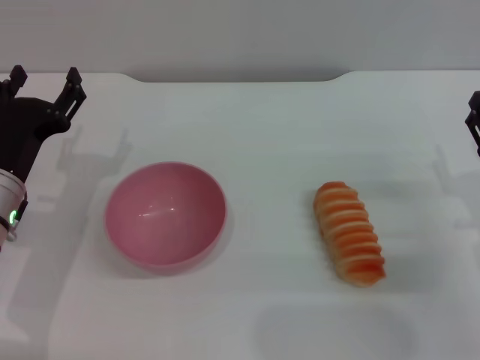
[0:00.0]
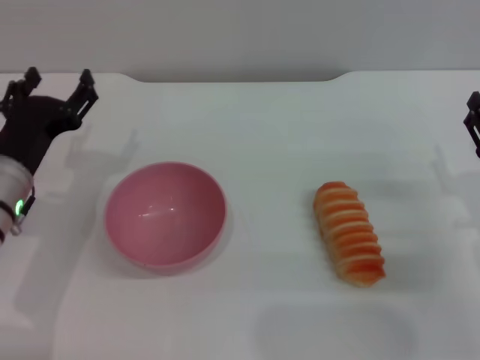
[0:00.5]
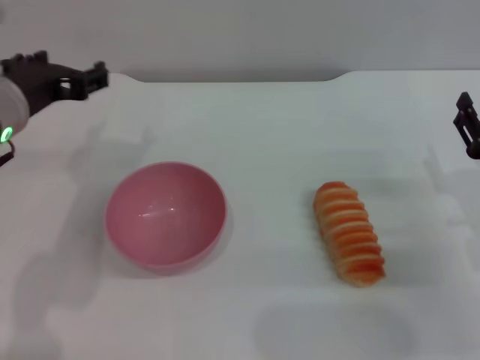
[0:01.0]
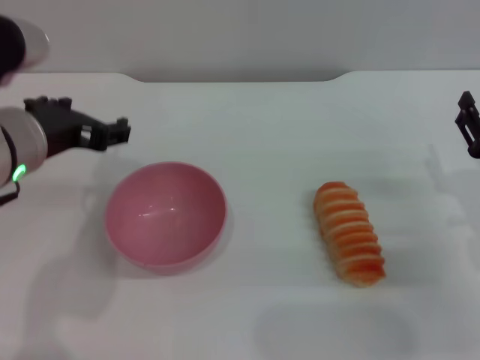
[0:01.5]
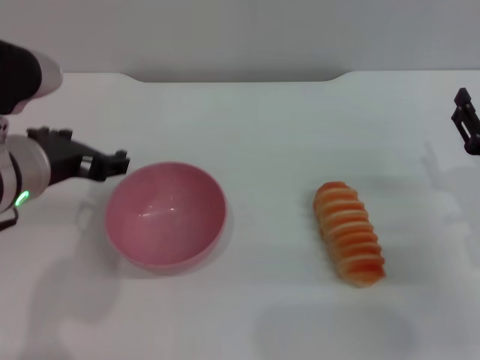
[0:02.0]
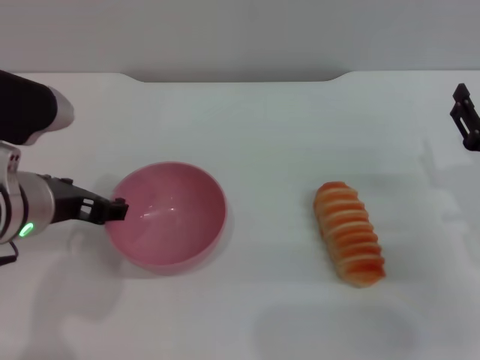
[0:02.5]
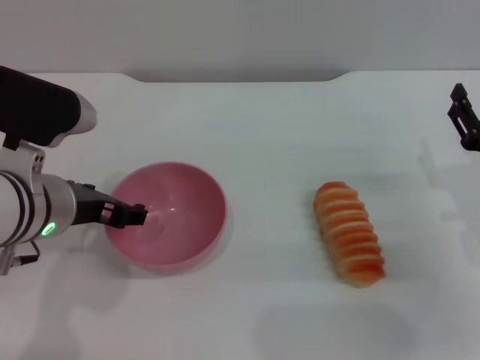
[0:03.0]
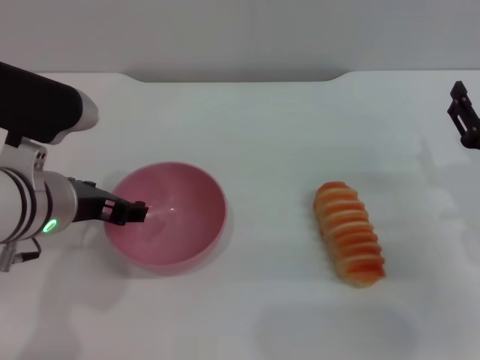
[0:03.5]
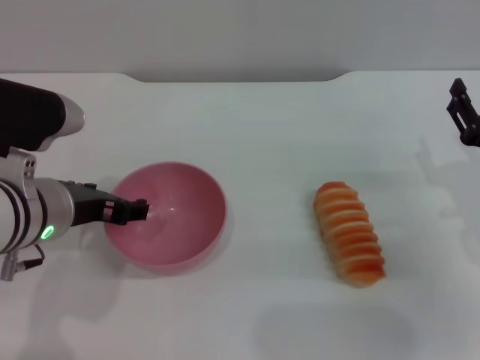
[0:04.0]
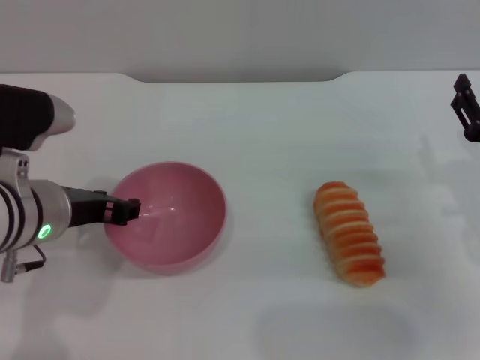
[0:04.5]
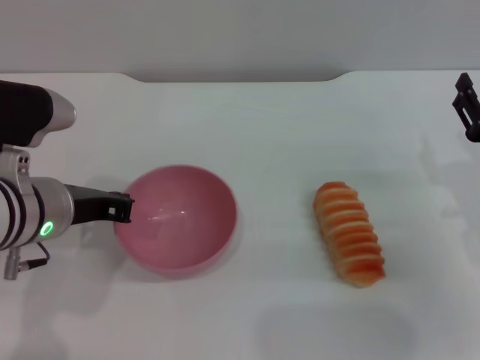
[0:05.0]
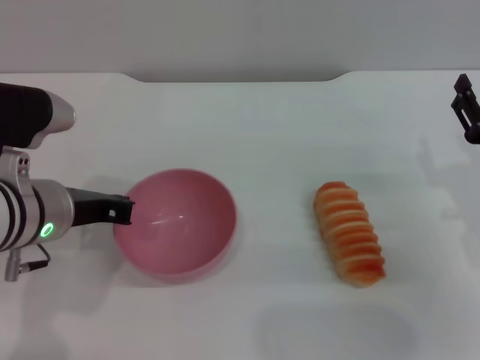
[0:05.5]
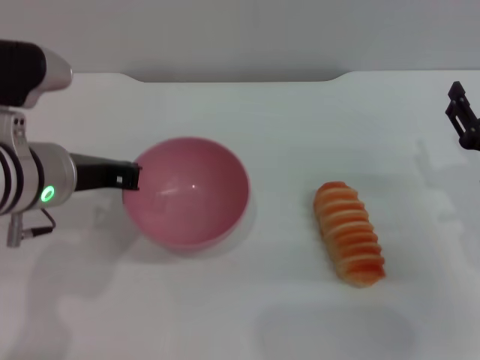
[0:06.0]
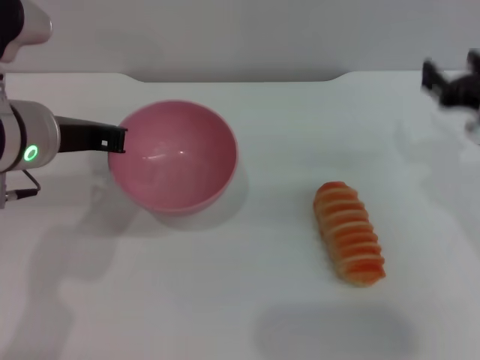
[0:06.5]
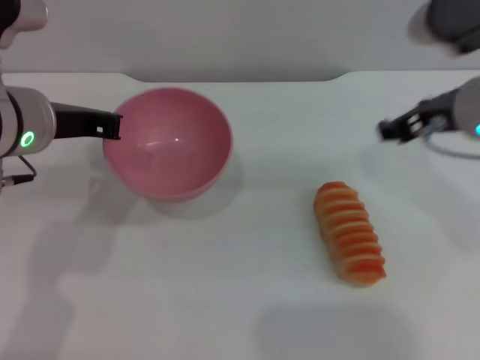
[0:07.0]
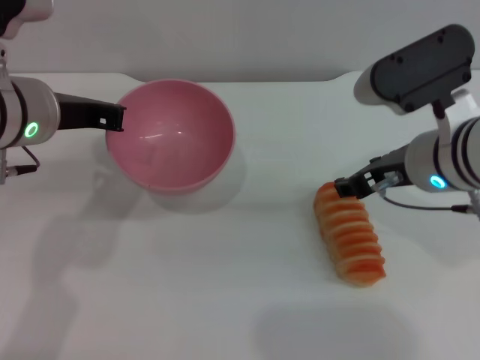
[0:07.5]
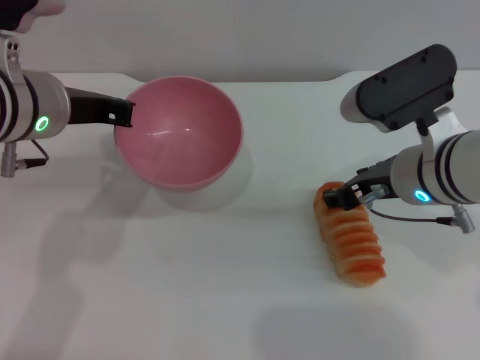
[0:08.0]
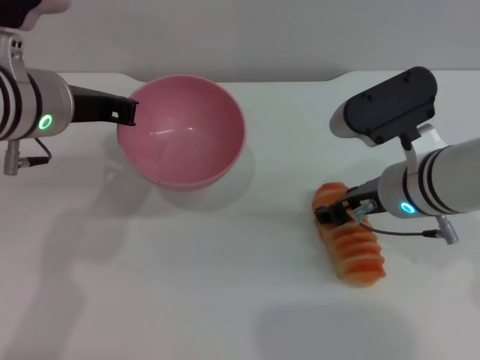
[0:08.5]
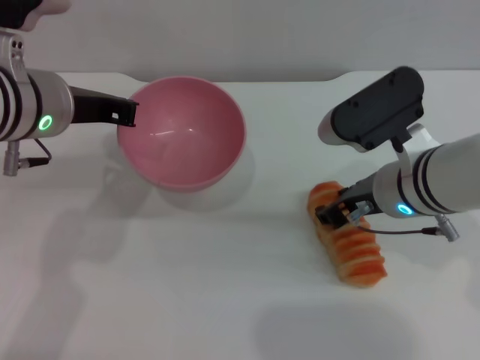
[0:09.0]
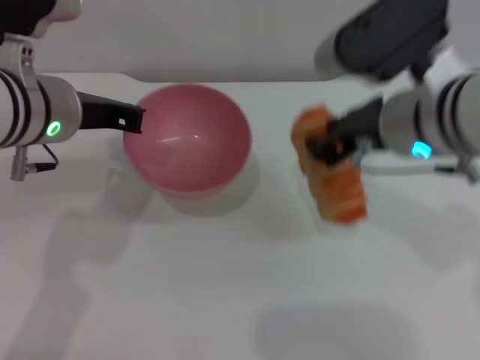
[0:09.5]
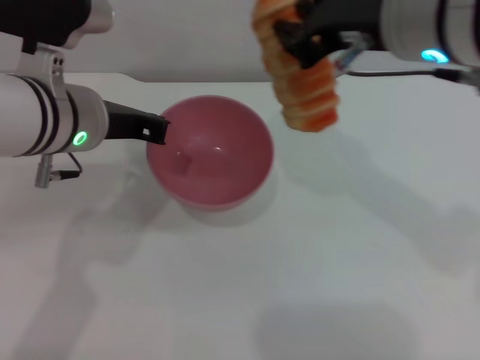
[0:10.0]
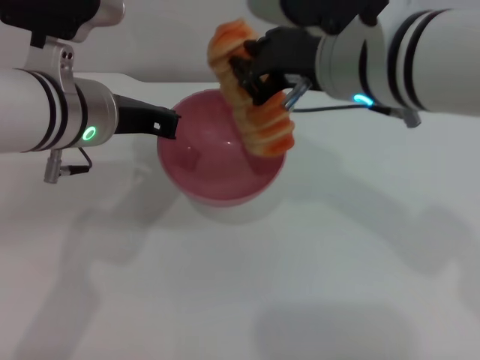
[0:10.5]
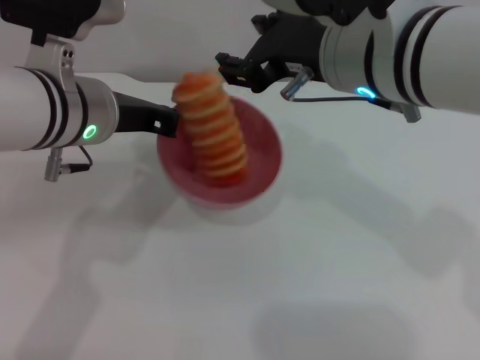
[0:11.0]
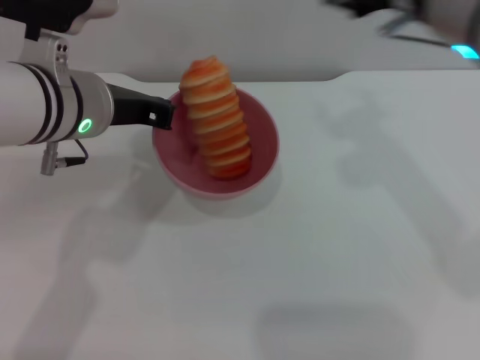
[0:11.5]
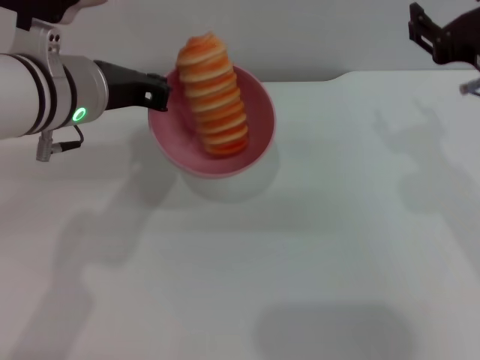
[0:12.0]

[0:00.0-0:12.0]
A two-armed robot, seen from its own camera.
Task of the whole recording: put the bread into the pink bowl and pour it out repeatedly.
Step, 0.0 to 6.0 s: Pick up the bowl with the left gripper.
Step, 6.5 to 9.0 s: Pick up the bread with the right gripper.
Step, 9.5 to 11.5 s: Place the bread into the bowl.
0.0 to 2.0 s: The left gripper heads upward and to the right, covering approximately 15 cm.
2.0 to 4.0 s: There are only small adjustments of the grippers.
4.0 to 6.0 s: The left gripper closes up.
6.0 to 8.0 s: The left gripper moves approximately 5 cm. Meanwhile the right gripper heads to the left and upward, covering about 15 cm.
8.0 to 10.0 s: The right gripper travels upward by some 15 cm, and closes up.
10.0 to 12.0 s: The right gripper heads to the right and downward, covering some 15 cm, and opens its fingers.

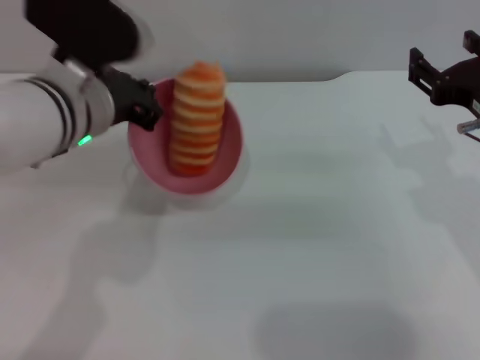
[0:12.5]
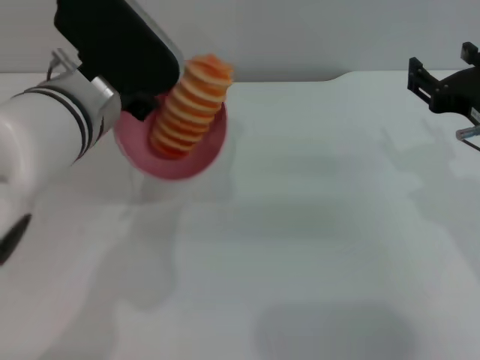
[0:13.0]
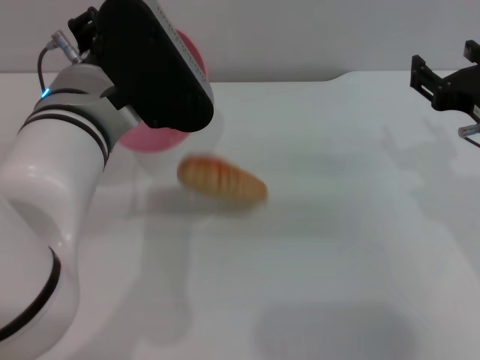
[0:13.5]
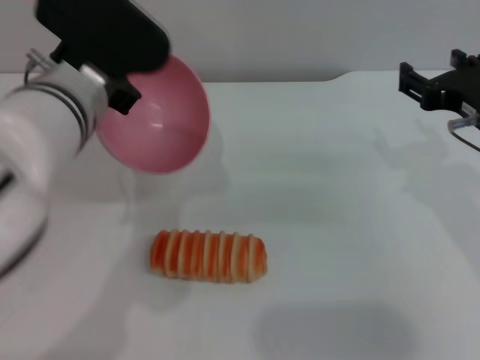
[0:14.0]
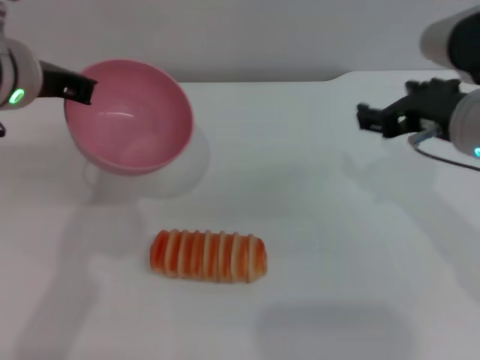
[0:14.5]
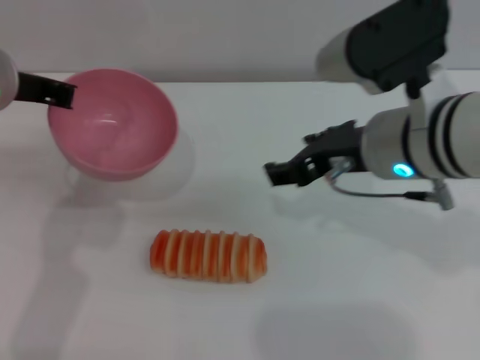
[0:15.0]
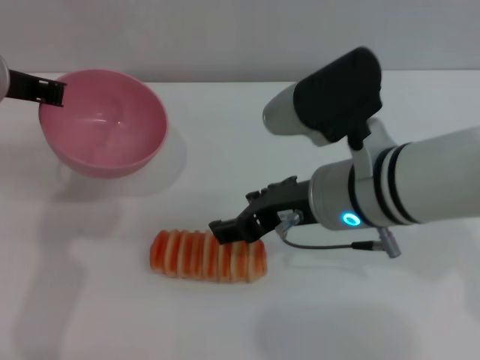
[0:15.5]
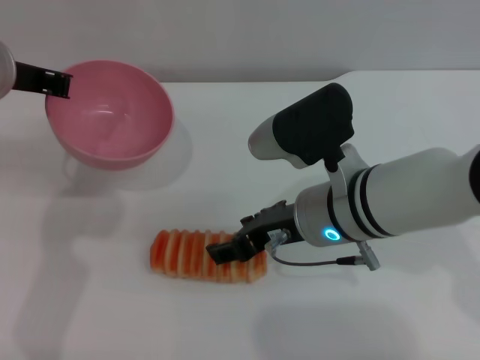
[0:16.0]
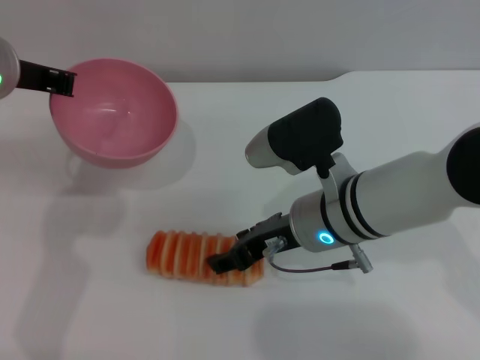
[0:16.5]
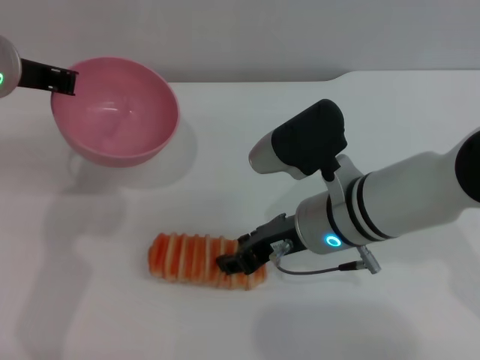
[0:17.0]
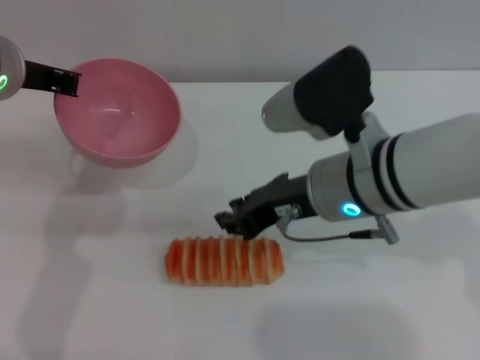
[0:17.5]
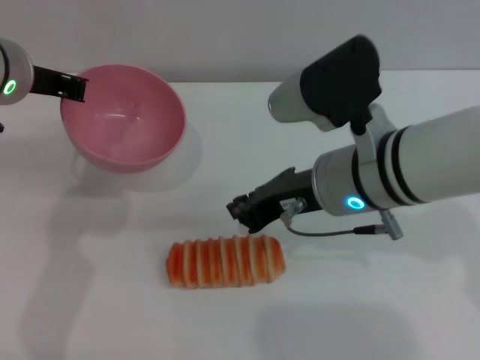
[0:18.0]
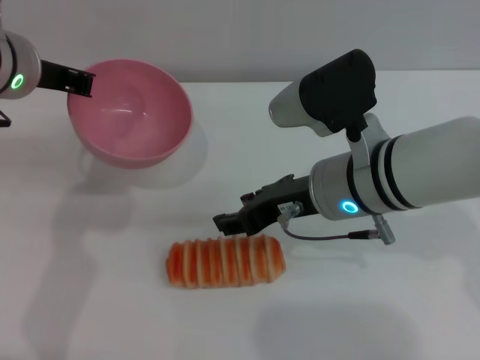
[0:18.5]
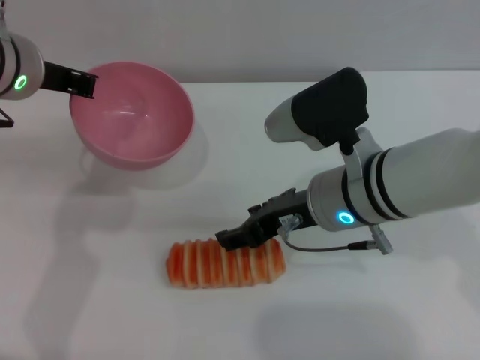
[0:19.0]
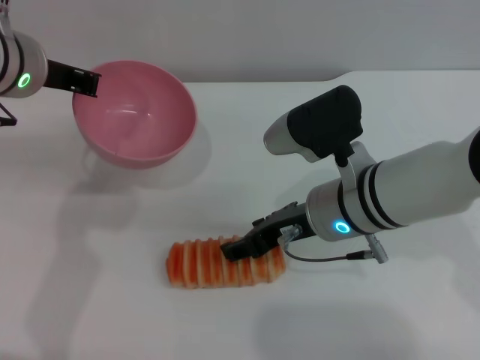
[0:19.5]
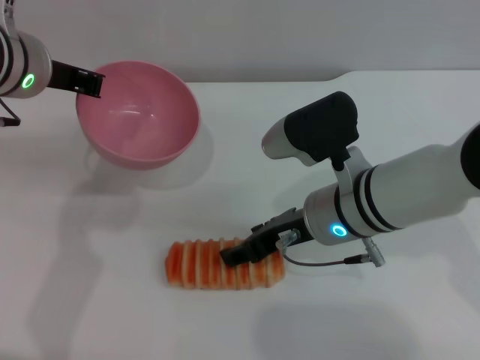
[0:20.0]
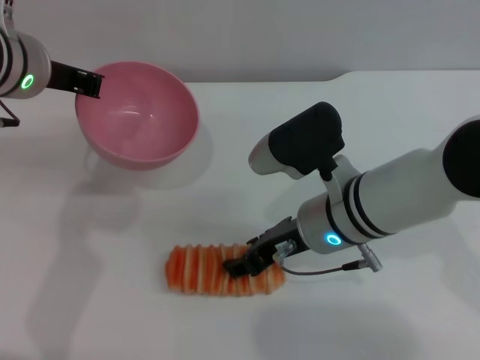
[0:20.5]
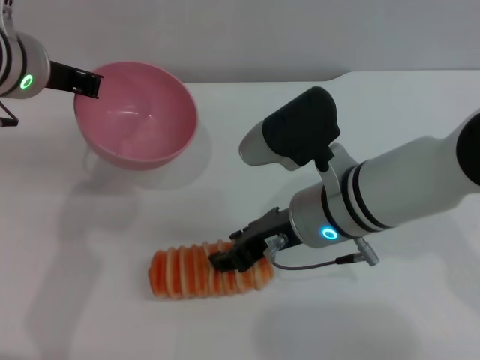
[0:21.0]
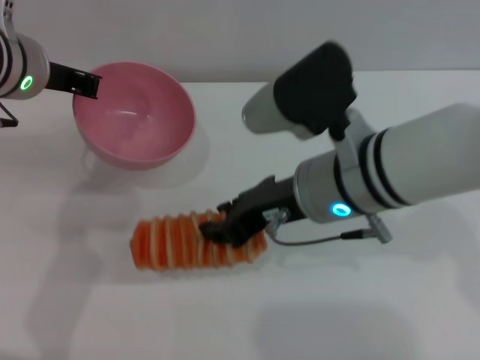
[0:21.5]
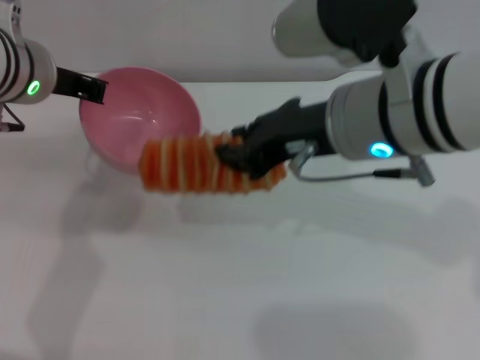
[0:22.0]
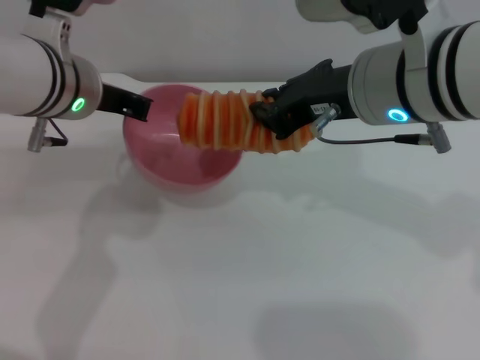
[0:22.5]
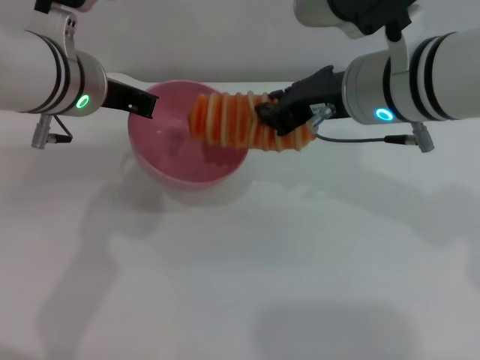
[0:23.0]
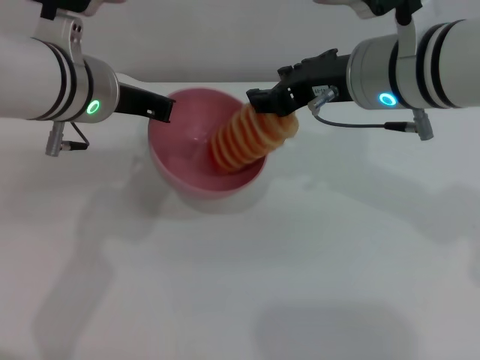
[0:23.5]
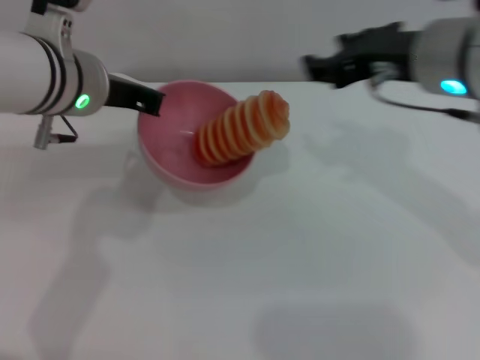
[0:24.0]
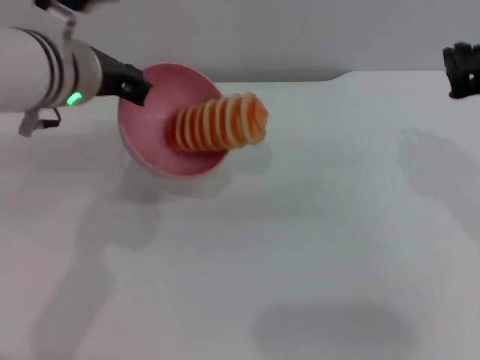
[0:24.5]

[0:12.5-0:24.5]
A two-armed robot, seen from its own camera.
Task of the whole recording: put the bread into the pink bowl and pour it out repeatedly.
Step, 12.5 to 14.0 s: Pour the bread out of the bowl.
Step, 14.5 to 21.5 s: Pick up the bread with the right gripper.
Step, 22.0 to 23.5 s: Place the bread into the bowl.
12.5 to 14.5 s: The left gripper ends up some 5 cm from where it was. The right gripper moves approximately 5 cm.
14.5 to 16.5 s: The right gripper shifts some 15 cm to the left and downward.
16.5 to 18.5 s: The right gripper closes.
20.5 to 22.5 s: The right gripper travels upward by approximately 15 cm, and closes its fingers.
22.5 to 24.5 s: The right gripper shifts about 10 cm to the right, and opens and closes again.

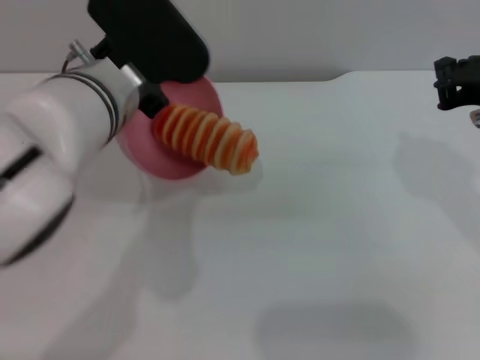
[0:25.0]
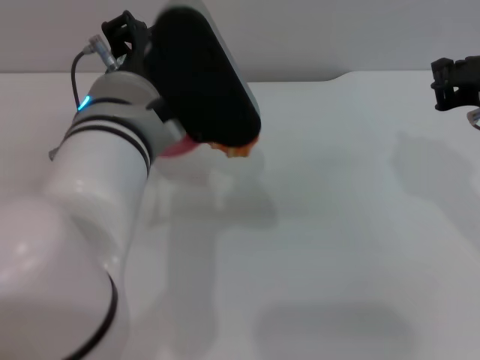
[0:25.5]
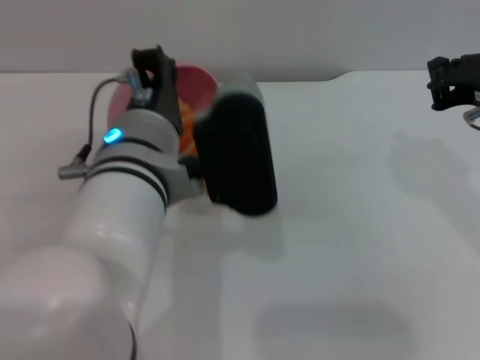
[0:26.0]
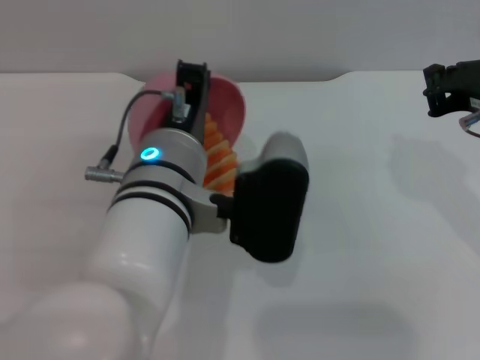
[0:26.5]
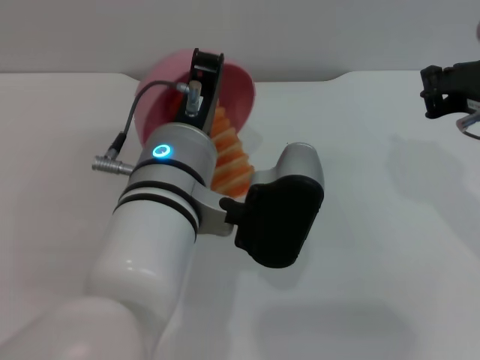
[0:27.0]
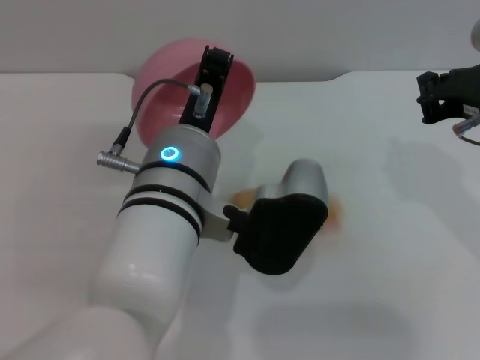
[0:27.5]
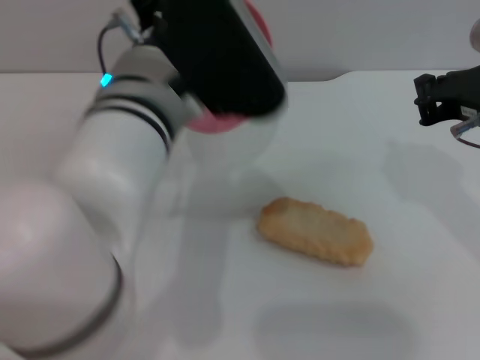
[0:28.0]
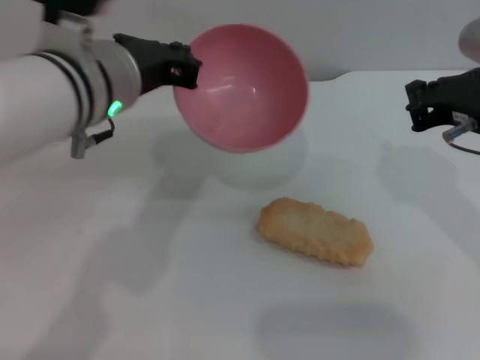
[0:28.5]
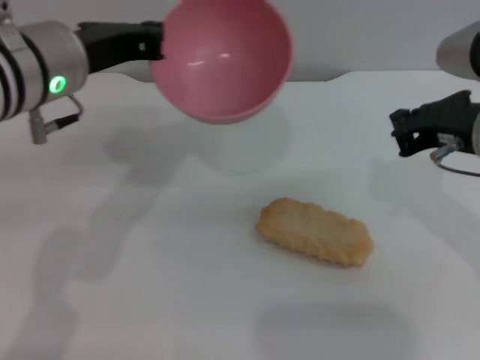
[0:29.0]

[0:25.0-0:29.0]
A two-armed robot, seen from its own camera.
Task of the whole recording: put the bread into the pink bowl and pour it out repeatedly.
Step, 25.0 to 28.5 s: Pour the bread out of the bowl.
25.0 to 27.0 s: The left gripper heads backward and to the right, covering approximately 10 cm.
27.0 to 29.0 s: The left gripper shifts approximately 15 cm to the left, forward and upward.
